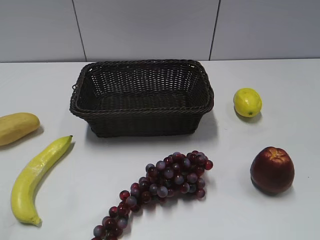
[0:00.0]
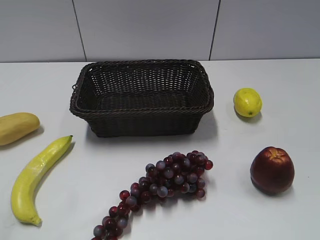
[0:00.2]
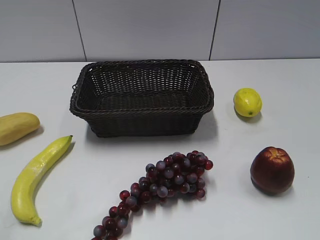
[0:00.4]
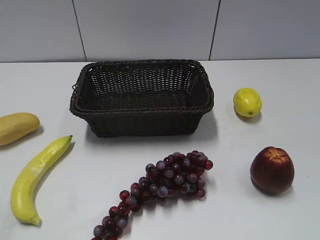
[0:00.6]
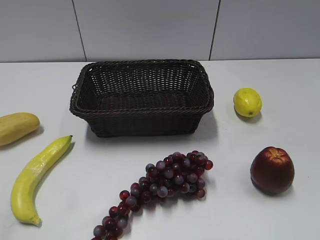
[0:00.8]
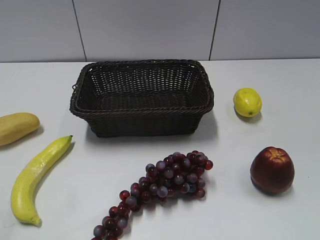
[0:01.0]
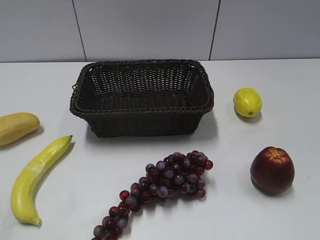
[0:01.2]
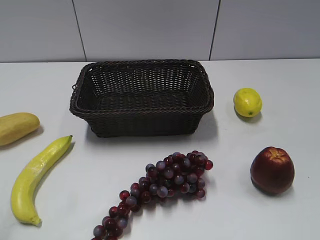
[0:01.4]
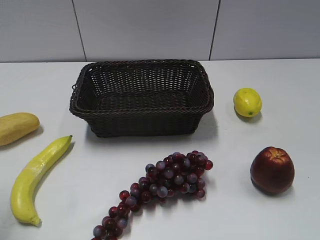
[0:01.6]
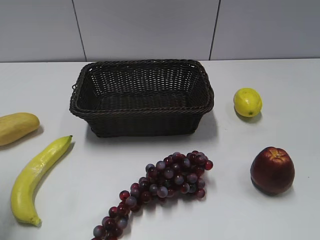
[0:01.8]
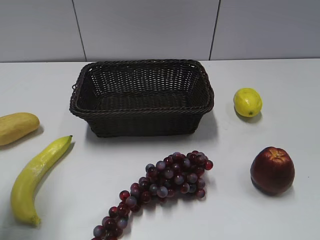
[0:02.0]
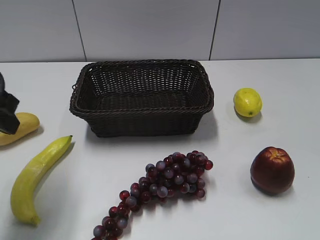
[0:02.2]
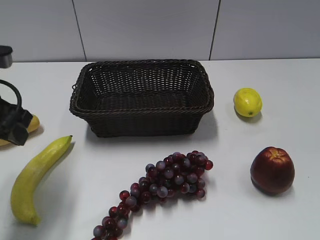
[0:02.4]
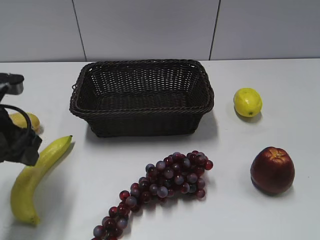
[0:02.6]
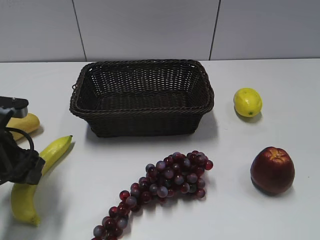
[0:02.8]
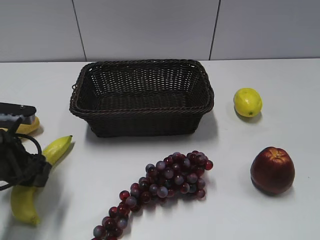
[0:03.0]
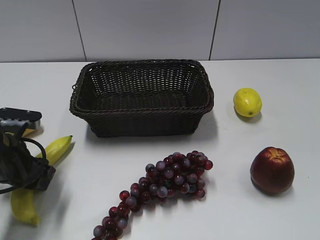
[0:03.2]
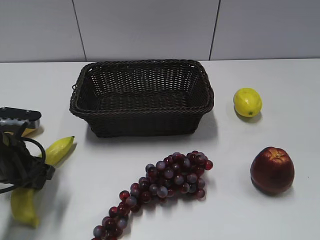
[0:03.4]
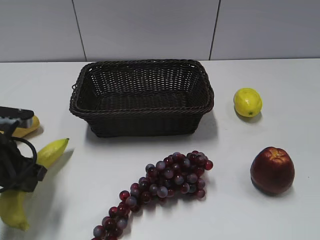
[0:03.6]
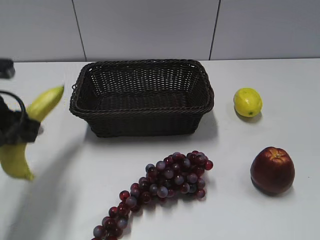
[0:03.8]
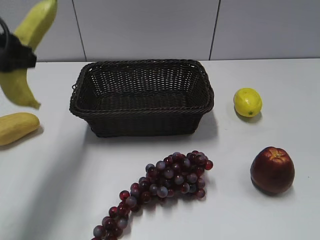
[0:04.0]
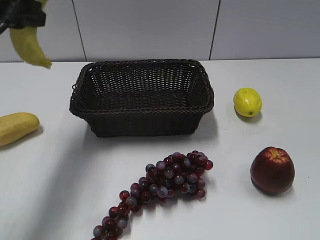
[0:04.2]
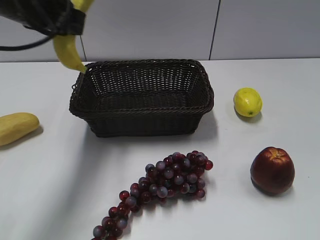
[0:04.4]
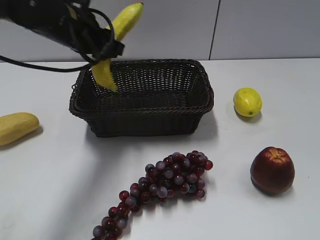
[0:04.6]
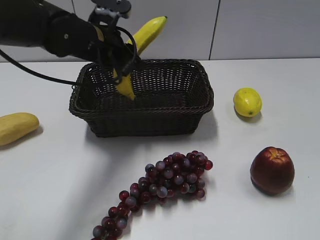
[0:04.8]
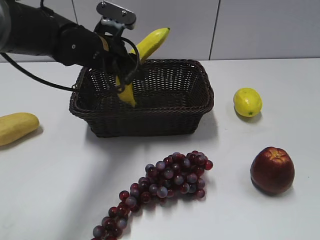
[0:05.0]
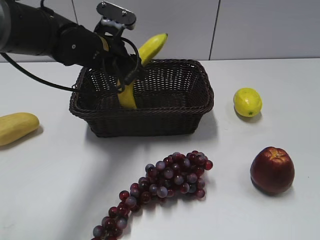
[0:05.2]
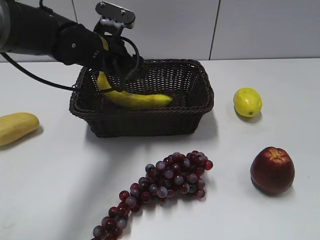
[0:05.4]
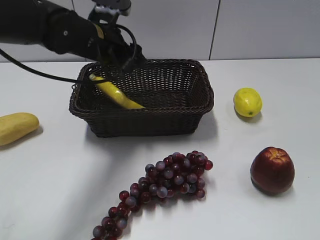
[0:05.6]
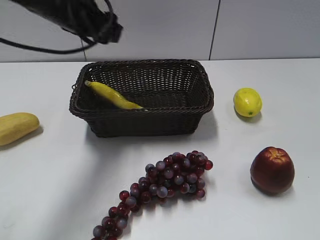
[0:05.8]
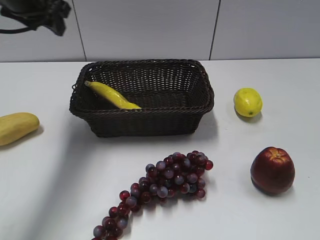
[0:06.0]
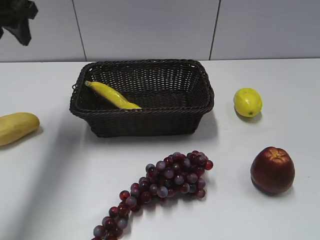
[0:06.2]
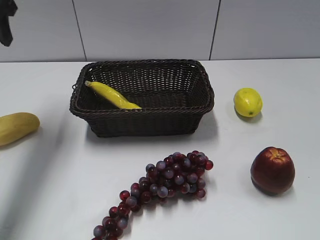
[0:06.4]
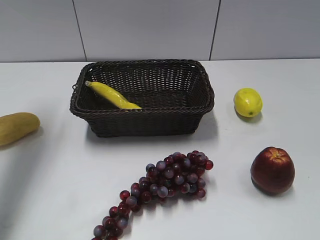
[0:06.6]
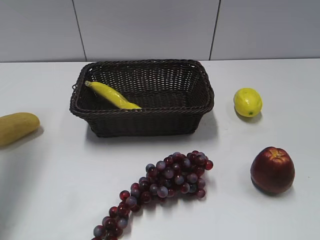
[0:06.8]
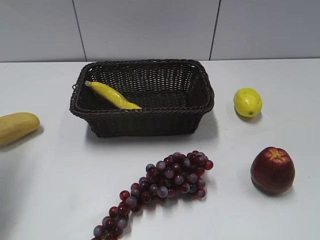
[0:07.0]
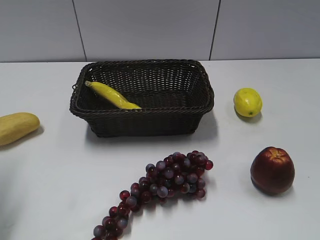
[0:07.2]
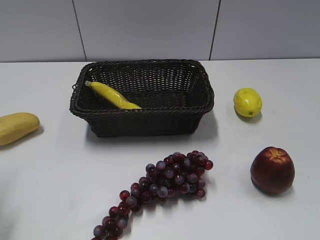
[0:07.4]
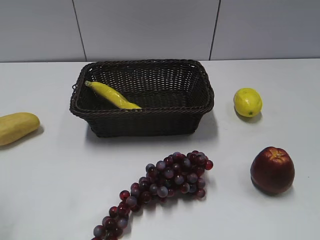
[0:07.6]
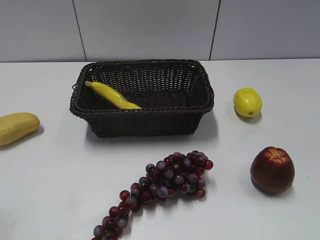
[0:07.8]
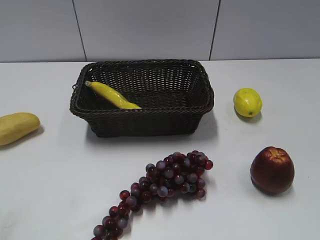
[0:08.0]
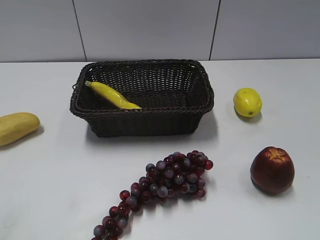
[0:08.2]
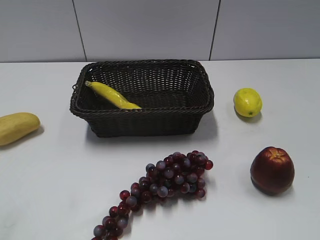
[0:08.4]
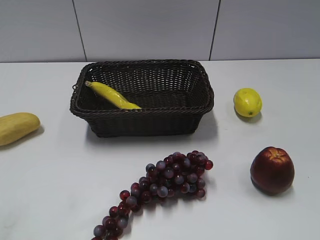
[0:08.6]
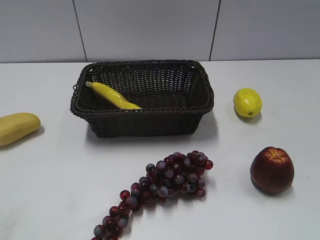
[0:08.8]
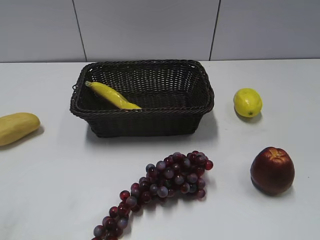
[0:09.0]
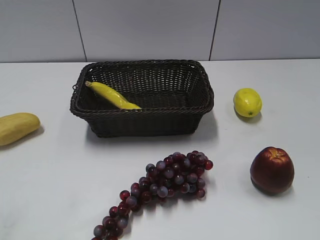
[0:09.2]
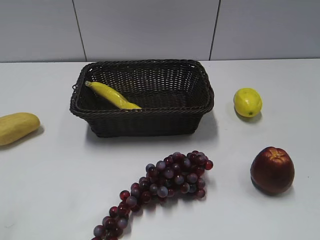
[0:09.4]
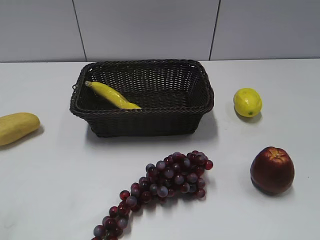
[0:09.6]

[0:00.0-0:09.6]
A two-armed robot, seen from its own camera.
Step, 0:02.2 to 0:03.2: Grasp the banana with left gripper.
Step, 0:03.6 to 0:05.2: Place the banana in the basket with left gripper.
0:01.6 to 0:03.2: The left gripper goes about 25 cm downward and forward, and opens.
0:03.2 to 0:04.8: The left gripper is displaced forward, to the right and upward by approximately 20 cm, and closes.
0:04.8 to 0:06.4: The left gripper goes some 20 cm to the left and upward, and opens up.
0:06.4 to 0:08.0: The left gripper heads backward, covering some 30 cm.
